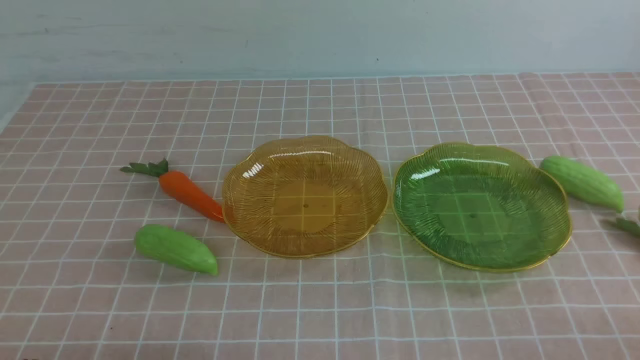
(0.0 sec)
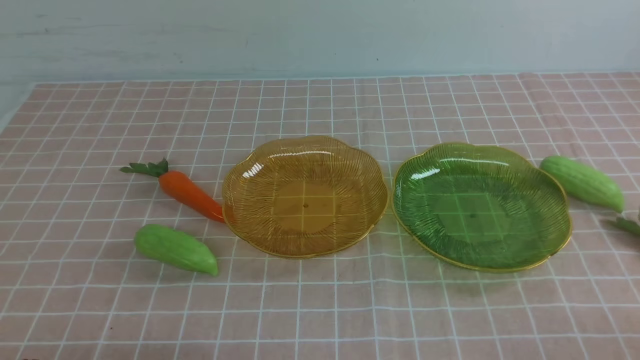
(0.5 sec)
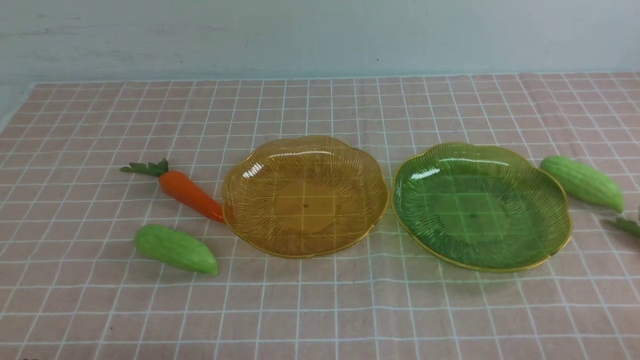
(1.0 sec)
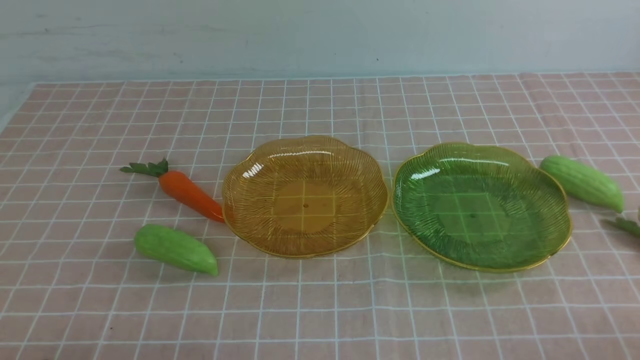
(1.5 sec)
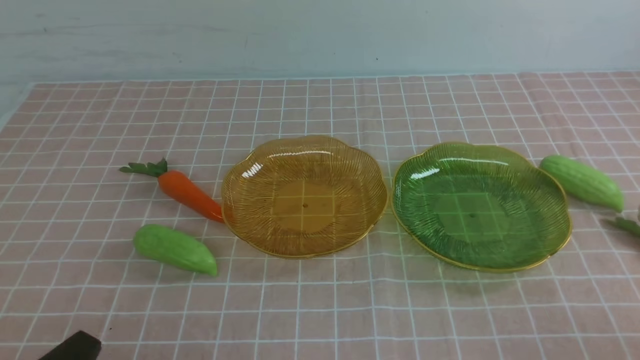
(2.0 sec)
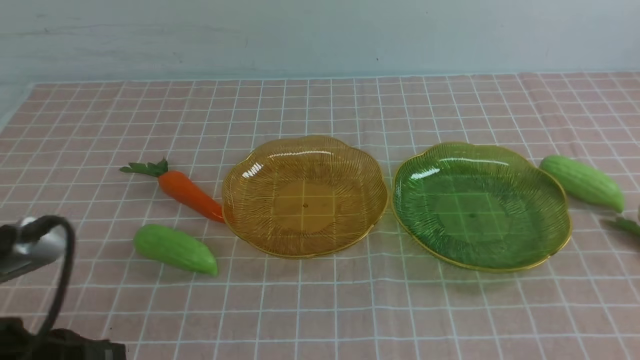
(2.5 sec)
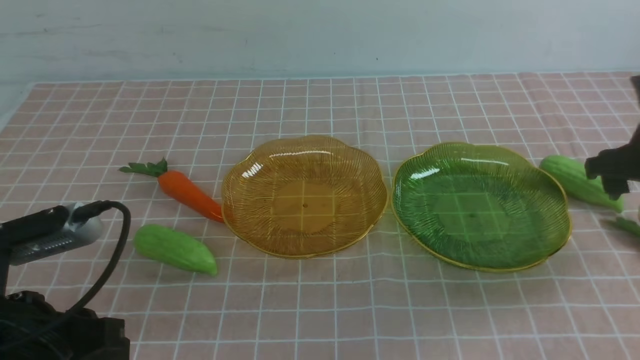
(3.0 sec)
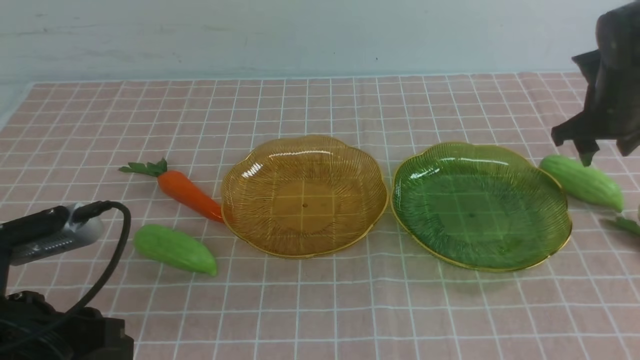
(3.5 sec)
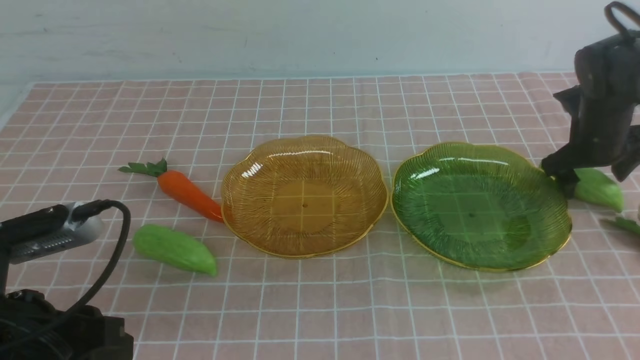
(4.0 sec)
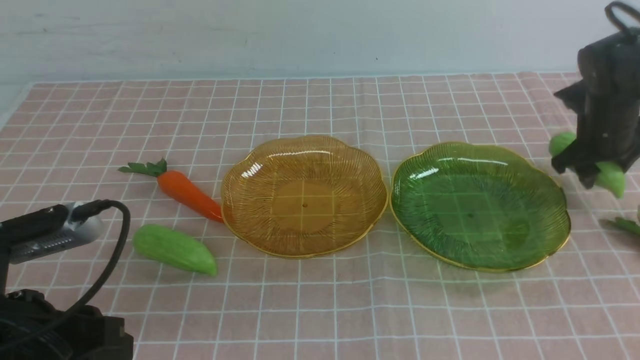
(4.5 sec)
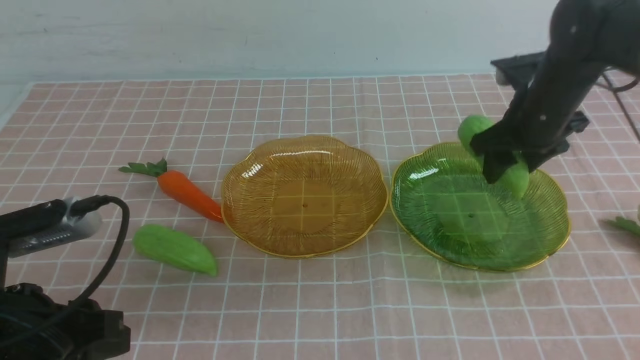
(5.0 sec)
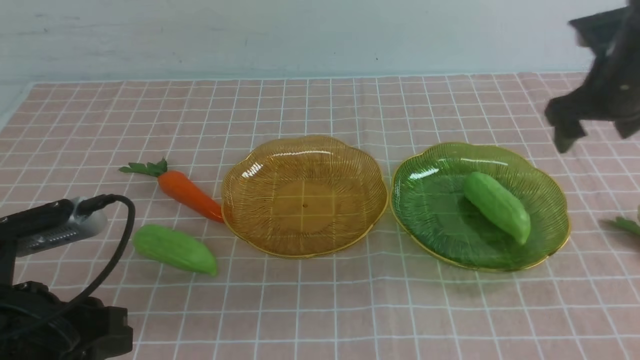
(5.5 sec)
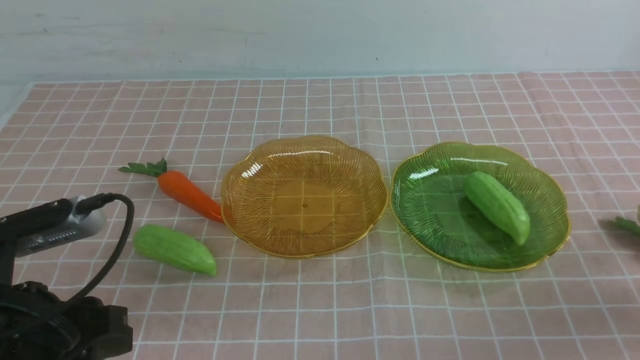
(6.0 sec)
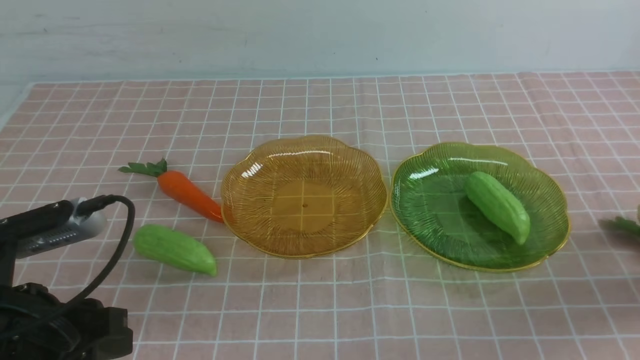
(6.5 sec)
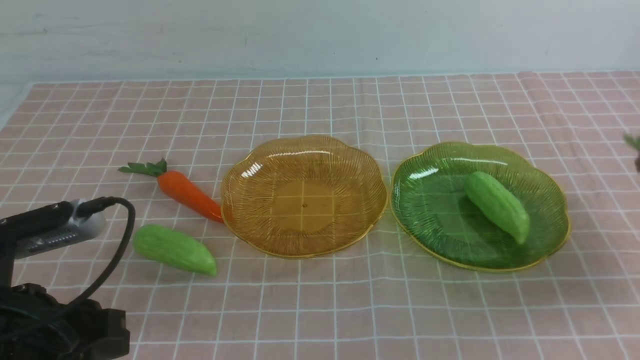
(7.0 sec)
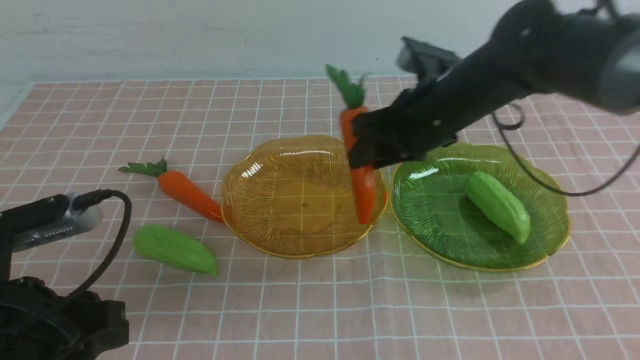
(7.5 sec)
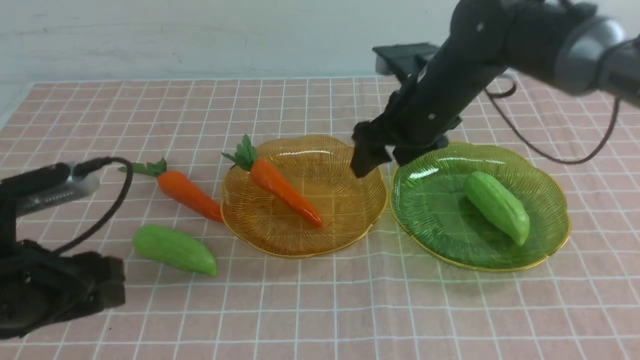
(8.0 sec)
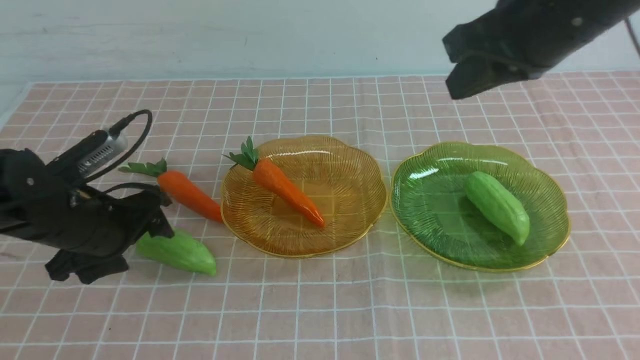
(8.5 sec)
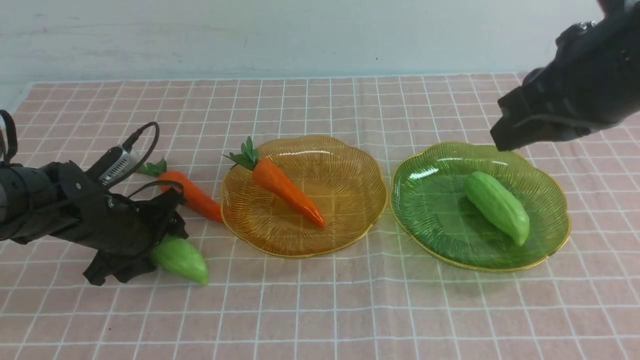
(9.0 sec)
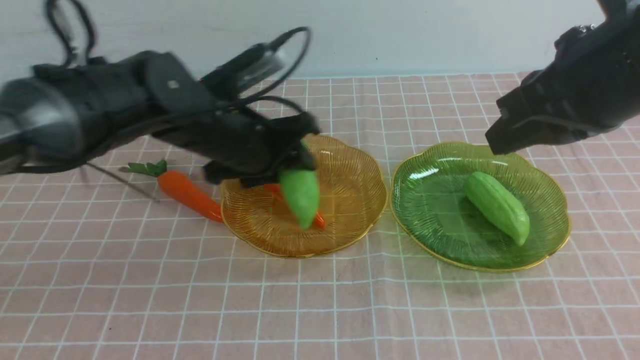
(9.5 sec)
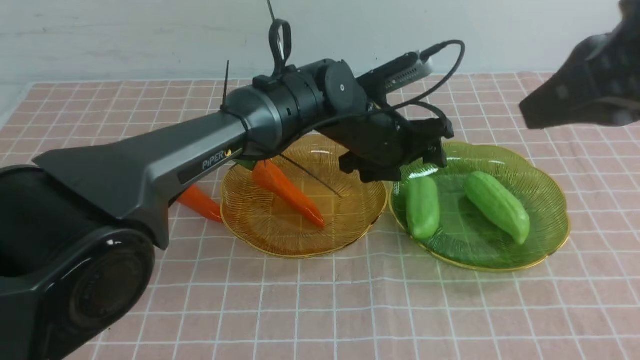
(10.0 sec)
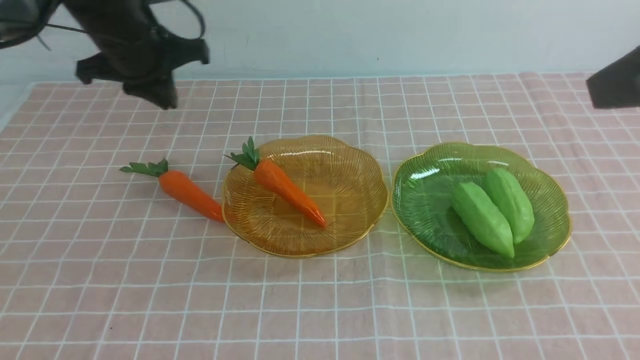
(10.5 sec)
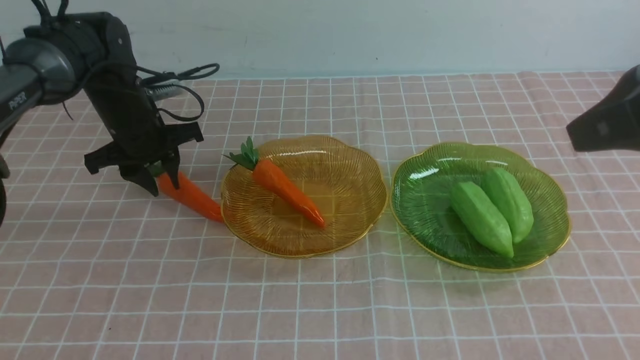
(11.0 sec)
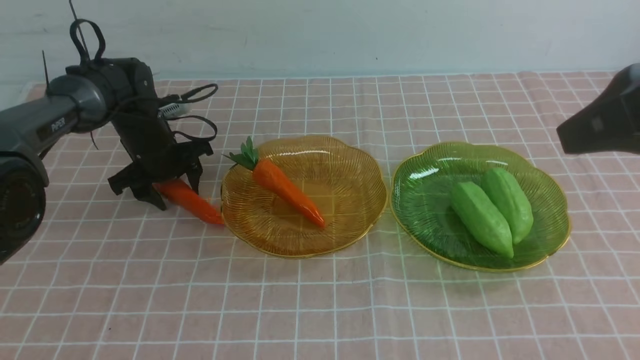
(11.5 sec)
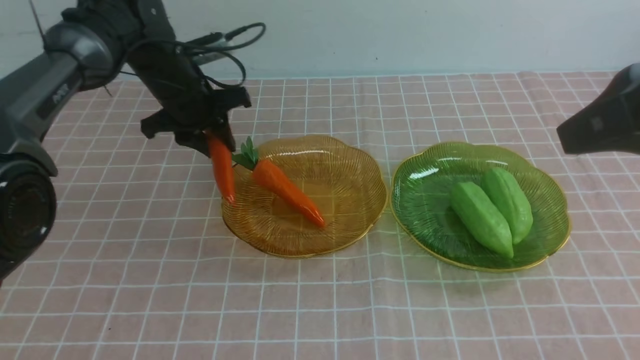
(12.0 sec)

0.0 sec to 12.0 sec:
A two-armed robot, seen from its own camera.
Step, 0.0 sec to 5.0 sec: use the right arm to grab a chayote and put it into the right plate.
Step, 5.5 sec to 7.5 sec: use the right arm to grab a carrot and put it into the left plate.
Step, 8.0 sec to 10.0 sec: use the left arm to grab a chayote and put it into the right plate.
2.0 sec to 4.0 sec: The left gripper heads forward, covering roughly 10 cm, and opens up. The right gripper heads forward, covering roughly 35 cm, and opens up.
4.0 sec to 6.0 sec: The right gripper goes some 15 cm to the right, backward and downward.
6.0 sec to 8.0 sec: The right gripper shifts some 35 cm to the left and upward, and closes up, while the left gripper shifts some 10 cm forward, and opens.
8.0 sec to 10.0 sec: The left gripper heads to the right and forward, covering some 30 cm, while the right gripper is displaced backward, upward and to the right by some 15 cm.
10.0 sec to 12.0 sec: The left gripper goes roughly 15 cm to the left, and closes, then opens again.

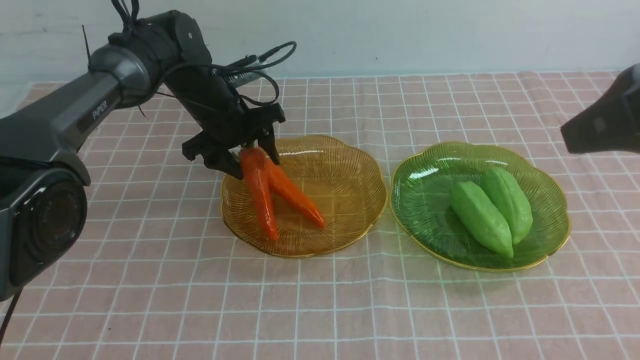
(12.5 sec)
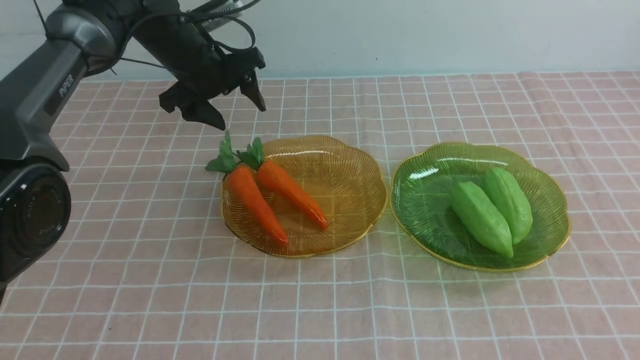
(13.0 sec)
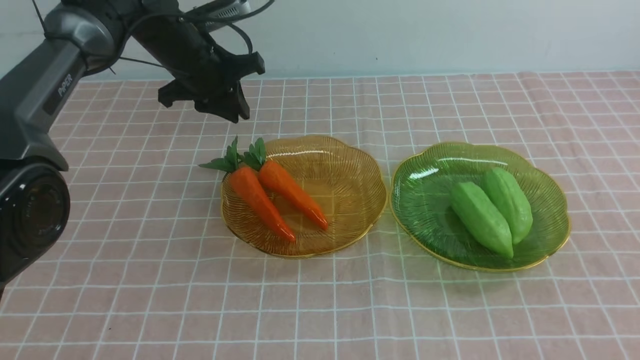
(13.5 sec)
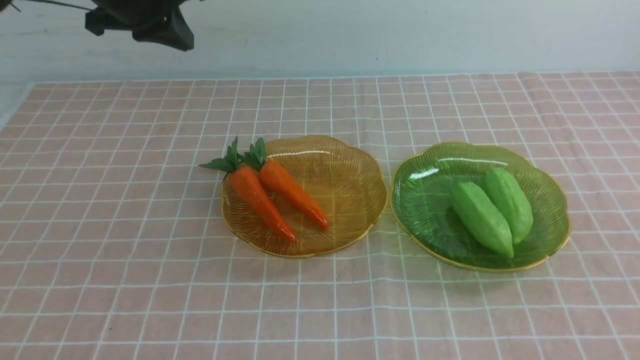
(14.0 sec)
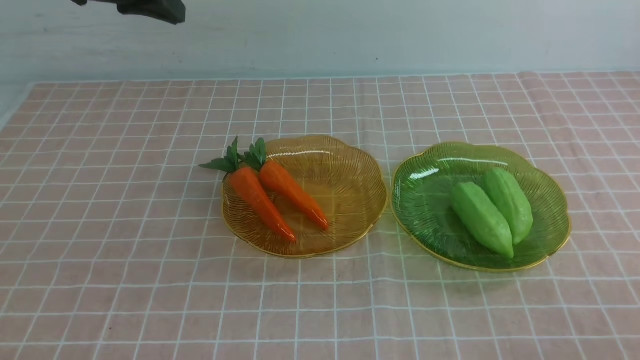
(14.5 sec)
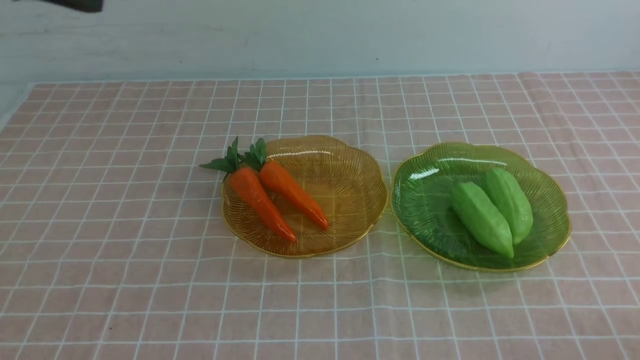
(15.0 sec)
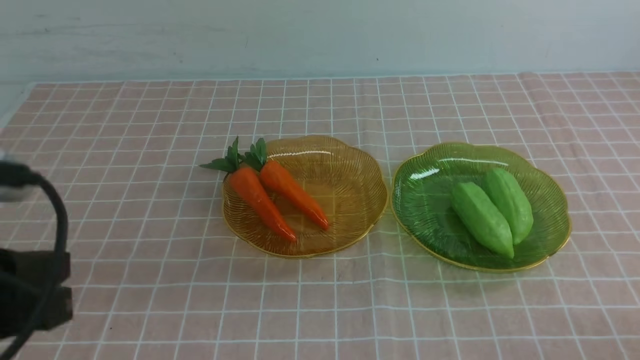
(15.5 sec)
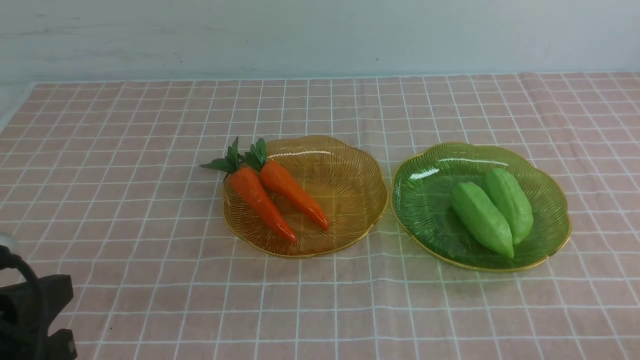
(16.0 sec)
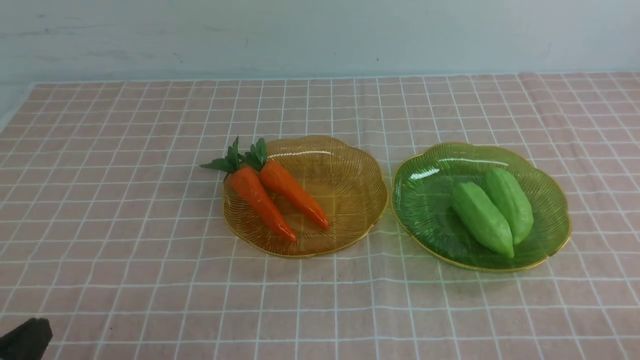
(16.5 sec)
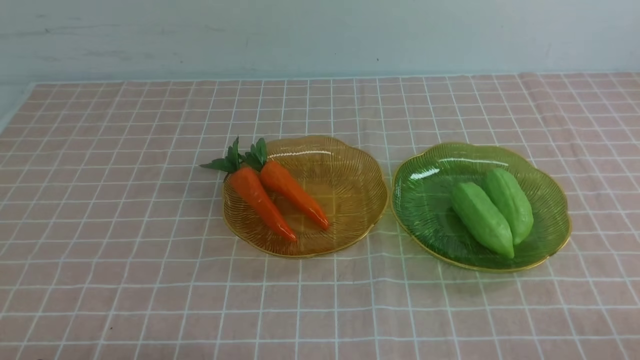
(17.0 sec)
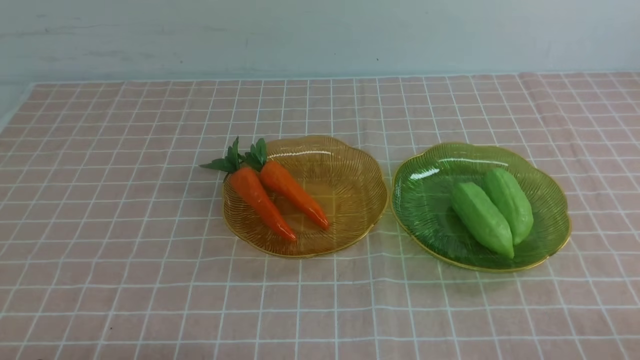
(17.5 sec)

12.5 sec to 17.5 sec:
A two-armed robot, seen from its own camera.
12.5 sec to 15.0 sec: The right gripper goes some 25 cm downward, while the left gripper moves backward, some 40 cm, and closes its fingers.
